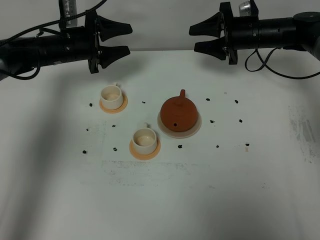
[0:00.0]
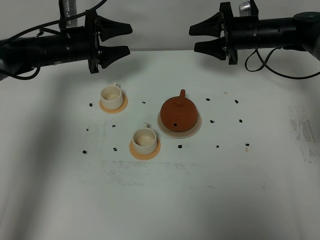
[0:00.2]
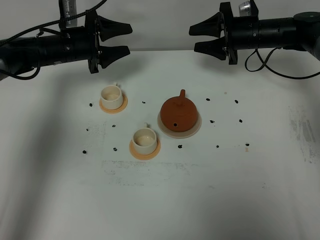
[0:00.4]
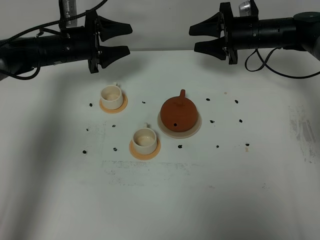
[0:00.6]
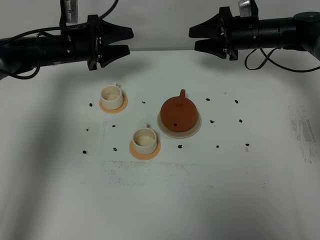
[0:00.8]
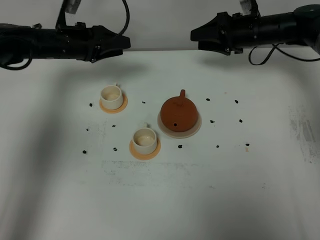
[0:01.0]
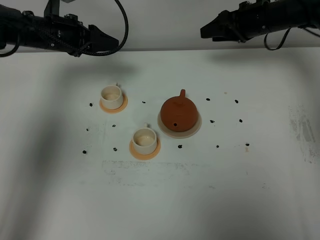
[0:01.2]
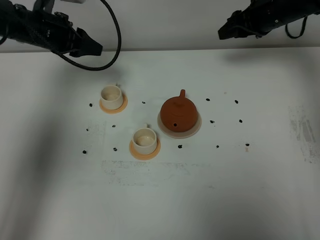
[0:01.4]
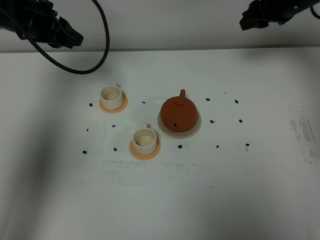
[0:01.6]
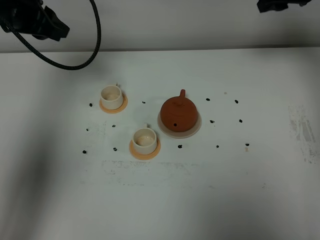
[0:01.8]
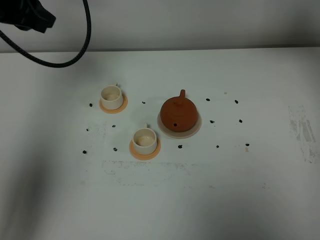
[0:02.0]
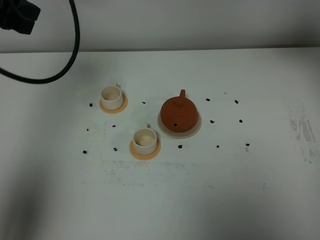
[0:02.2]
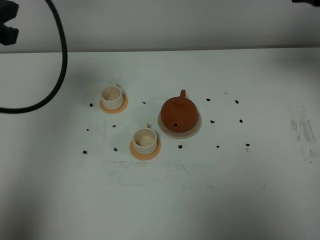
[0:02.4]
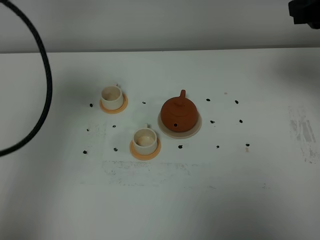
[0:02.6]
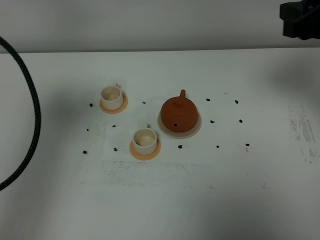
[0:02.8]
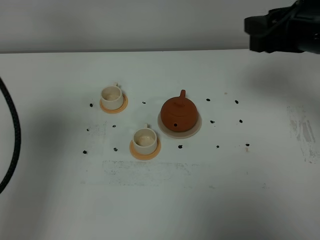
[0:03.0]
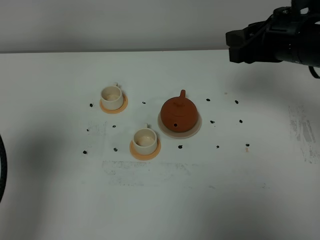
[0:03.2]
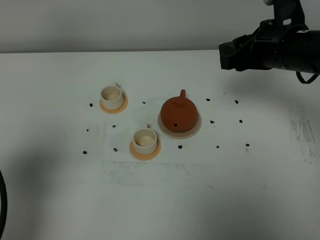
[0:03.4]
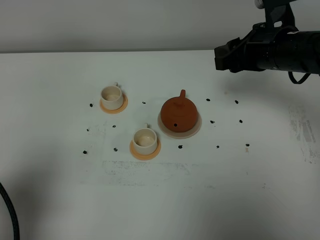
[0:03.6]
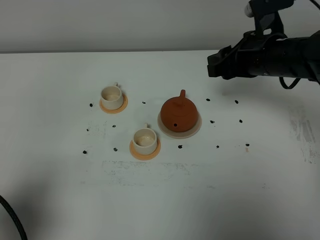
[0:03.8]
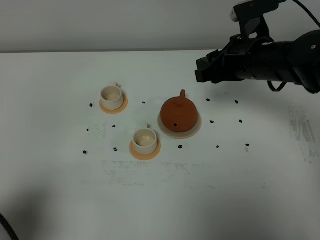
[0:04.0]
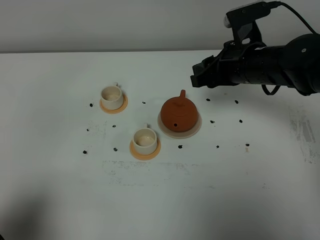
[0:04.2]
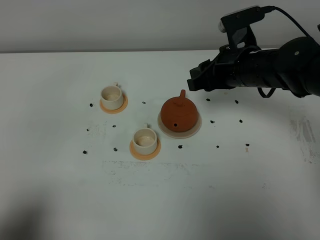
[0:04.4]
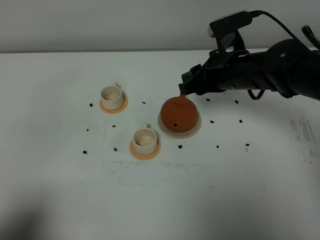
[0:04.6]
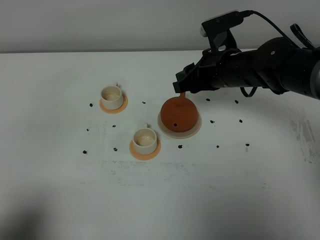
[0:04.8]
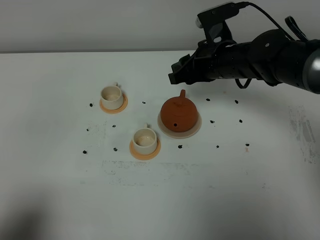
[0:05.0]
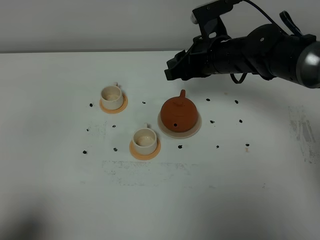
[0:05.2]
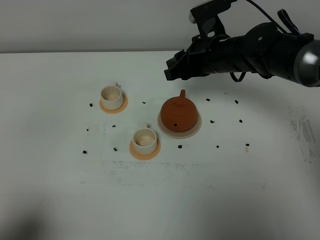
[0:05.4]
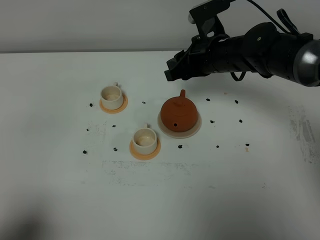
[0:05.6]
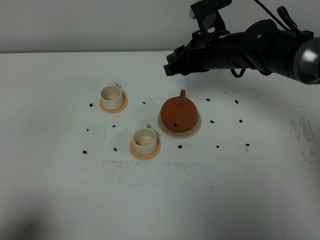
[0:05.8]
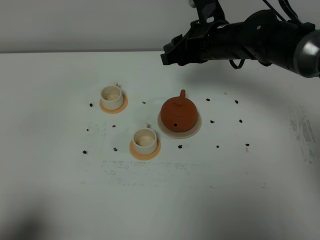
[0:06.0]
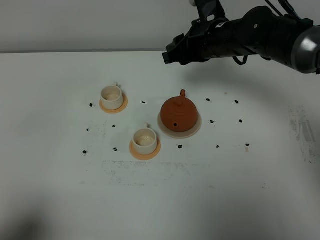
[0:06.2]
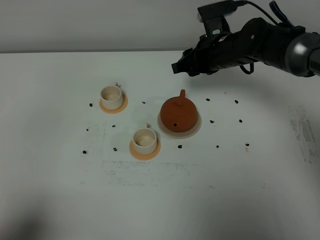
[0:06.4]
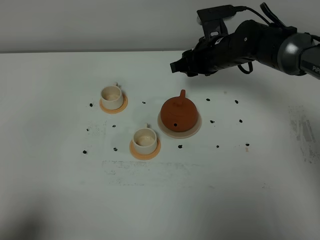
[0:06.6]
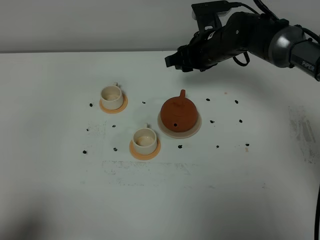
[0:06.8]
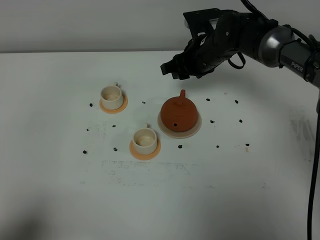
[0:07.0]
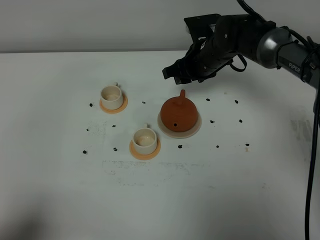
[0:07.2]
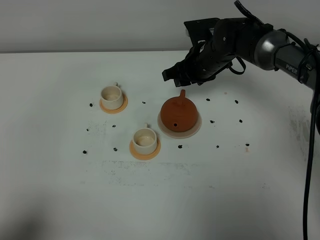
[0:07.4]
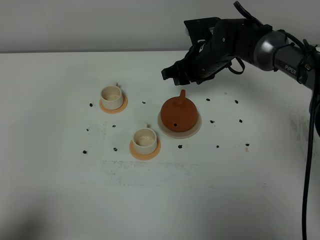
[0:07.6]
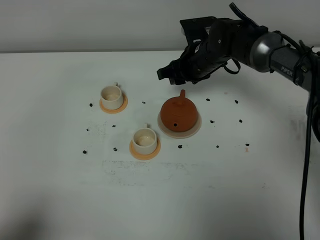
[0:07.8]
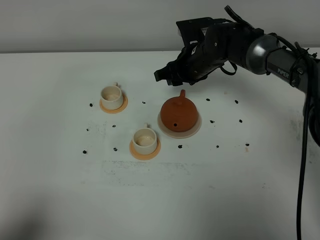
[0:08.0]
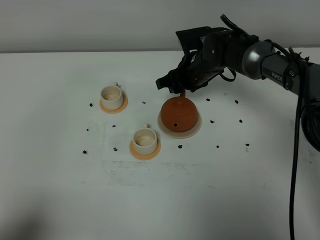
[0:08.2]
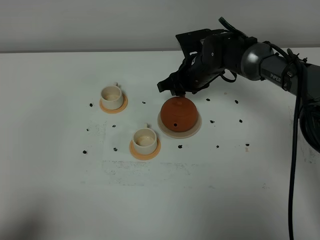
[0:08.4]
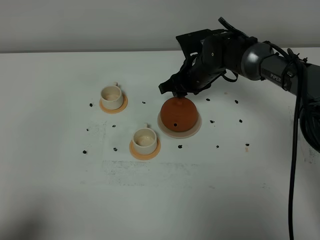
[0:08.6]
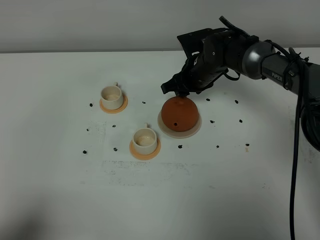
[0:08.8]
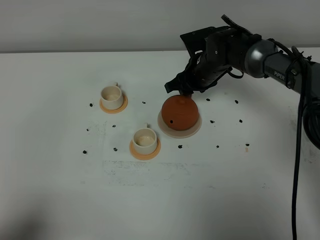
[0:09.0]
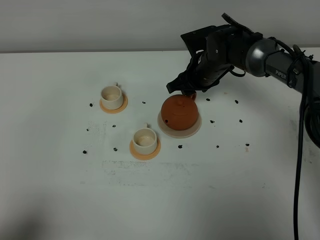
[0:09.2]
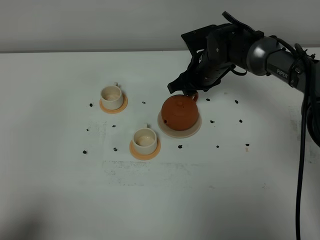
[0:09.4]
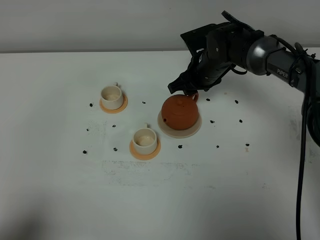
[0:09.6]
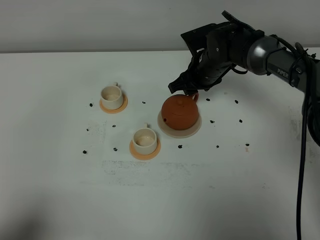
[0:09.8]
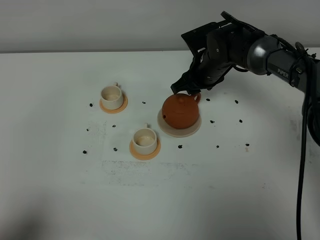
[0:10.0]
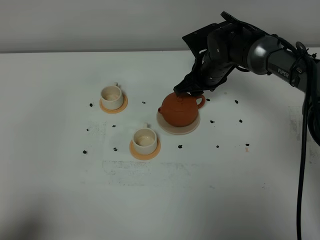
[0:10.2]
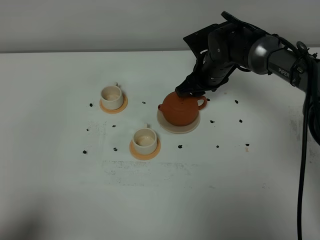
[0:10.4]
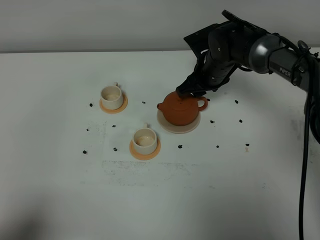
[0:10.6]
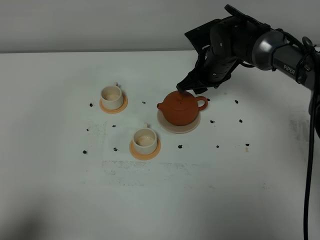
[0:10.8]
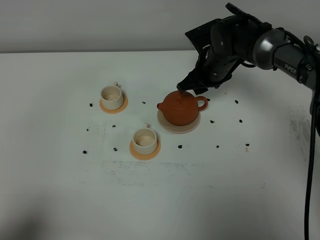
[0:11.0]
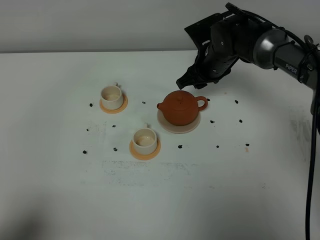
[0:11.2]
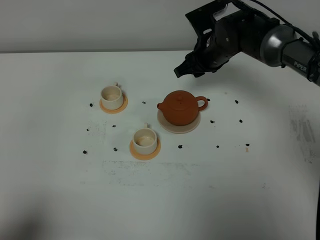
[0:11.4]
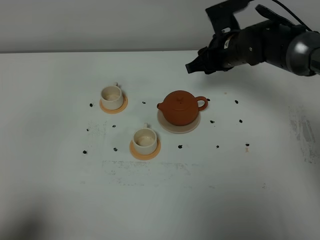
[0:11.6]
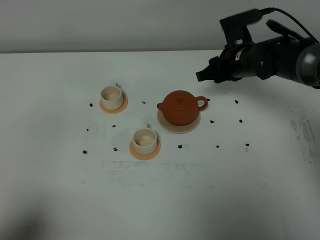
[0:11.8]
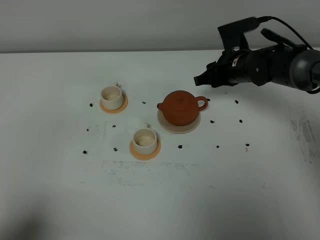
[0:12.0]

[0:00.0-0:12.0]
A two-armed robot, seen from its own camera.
Task of the whole recording: grasp the brown teapot and pour the tea into the two white teacups one by one, put the brown teapot back in its original place.
0:00.0 to 0:01.6: The right gripper shifts some 10 cm upward and to the right. The left gripper is displaced upward and backward by roughly 15 cm, and closes its fingers.
0:01.6 to 0:03.0: The right gripper moves backward, some 20 cm. Meanwhile the left gripper travels backward by roughly 30 cm.
0:03.0 to 0:04.4: The right gripper travels downward, to the left and forward by some 15 cm. The left gripper moves backward and downward, some 20 cm.
0:04.4 to 0:06.0: The right gripper is displaced forward by approximately 5 cm.
0:06.0 to 0:07.6: The right gripper travels downward by about 5 cm.
0:07.6 to 0:10.4: The grippers move only a little.
0:10.4 to 0:12.0: The right gripper heads to the right, covering approximately 5 cm.

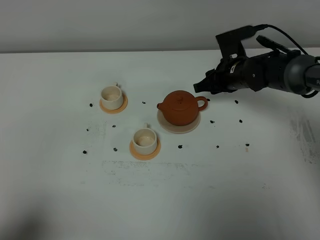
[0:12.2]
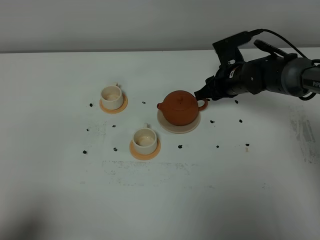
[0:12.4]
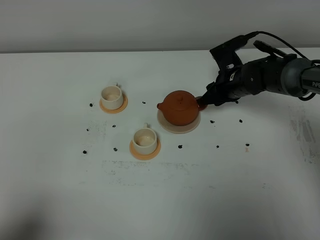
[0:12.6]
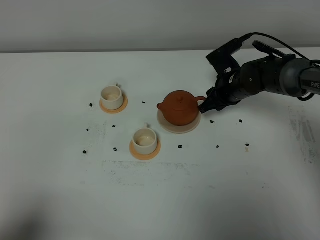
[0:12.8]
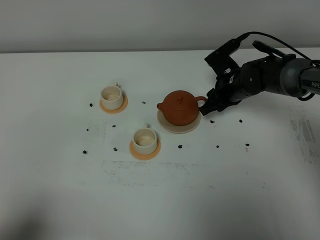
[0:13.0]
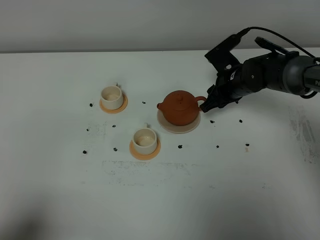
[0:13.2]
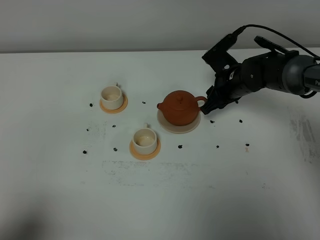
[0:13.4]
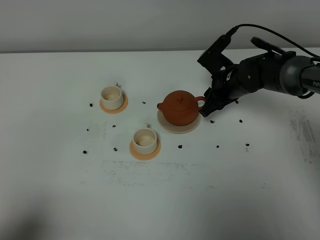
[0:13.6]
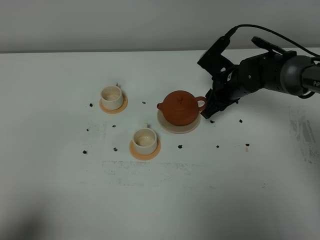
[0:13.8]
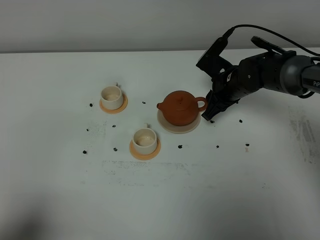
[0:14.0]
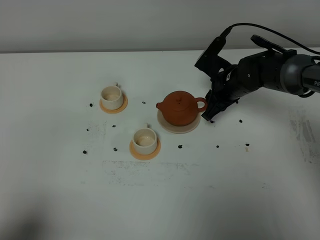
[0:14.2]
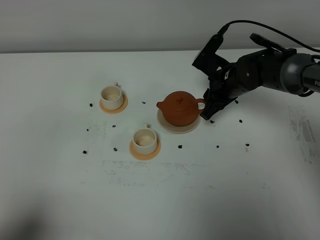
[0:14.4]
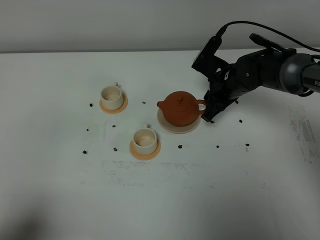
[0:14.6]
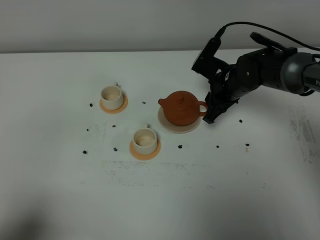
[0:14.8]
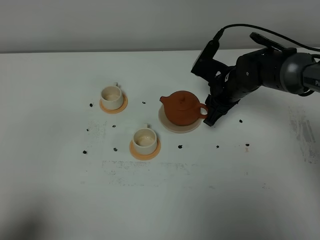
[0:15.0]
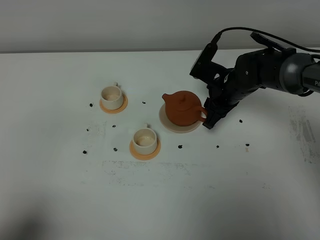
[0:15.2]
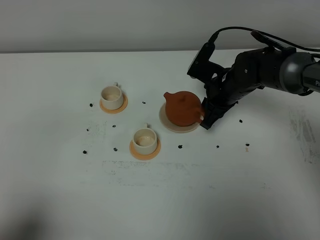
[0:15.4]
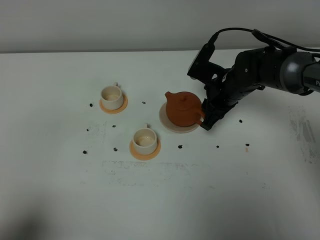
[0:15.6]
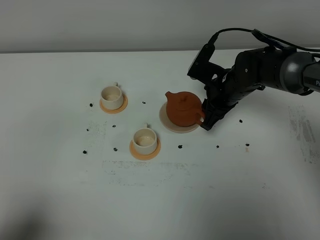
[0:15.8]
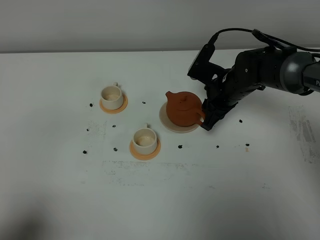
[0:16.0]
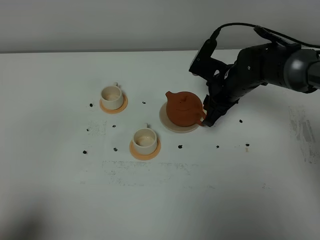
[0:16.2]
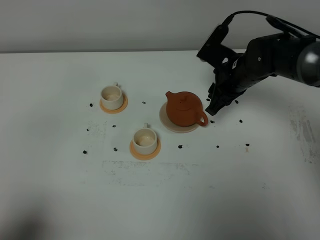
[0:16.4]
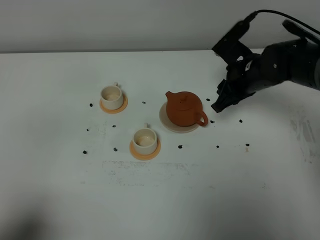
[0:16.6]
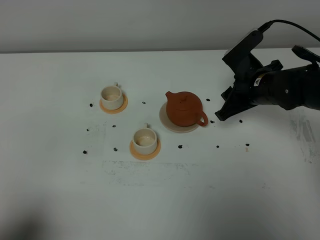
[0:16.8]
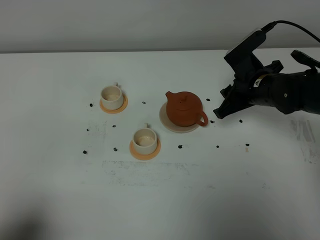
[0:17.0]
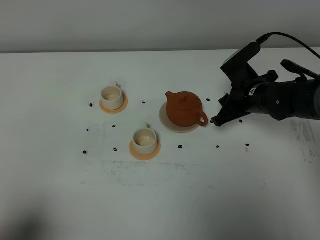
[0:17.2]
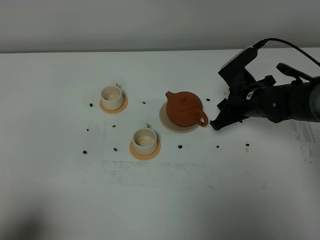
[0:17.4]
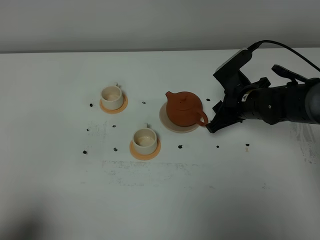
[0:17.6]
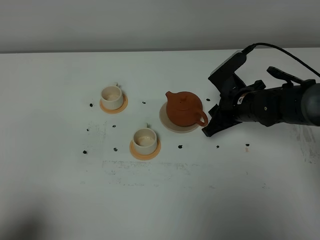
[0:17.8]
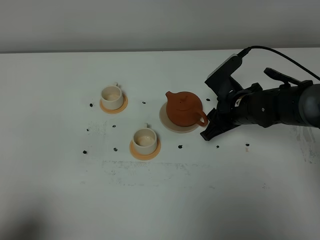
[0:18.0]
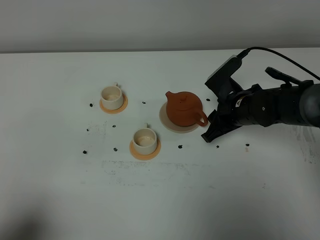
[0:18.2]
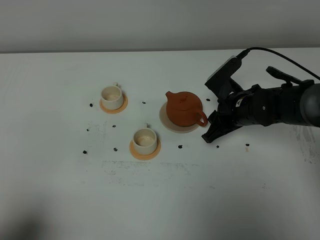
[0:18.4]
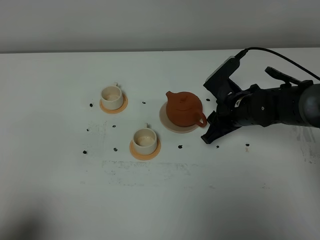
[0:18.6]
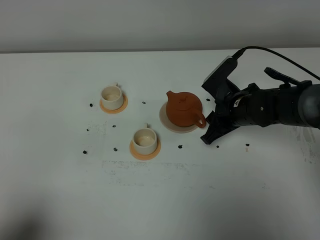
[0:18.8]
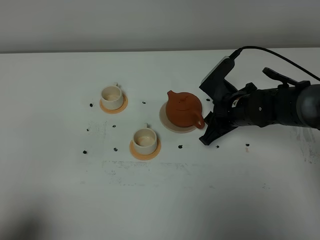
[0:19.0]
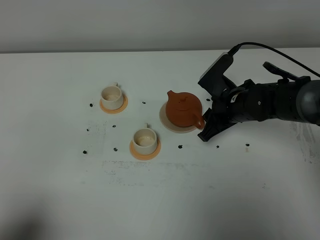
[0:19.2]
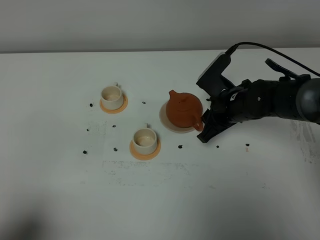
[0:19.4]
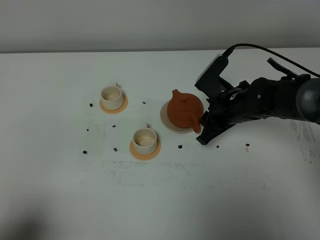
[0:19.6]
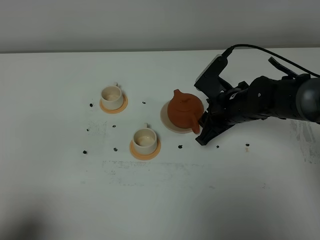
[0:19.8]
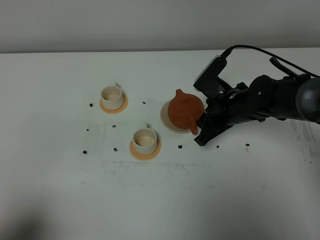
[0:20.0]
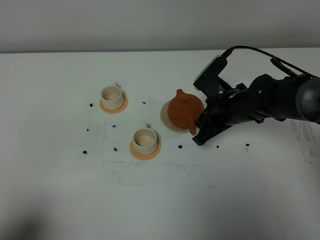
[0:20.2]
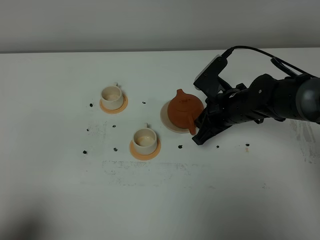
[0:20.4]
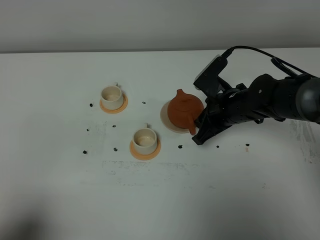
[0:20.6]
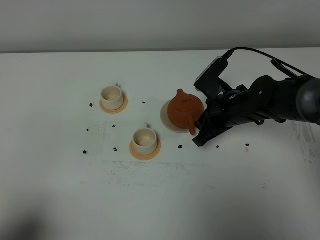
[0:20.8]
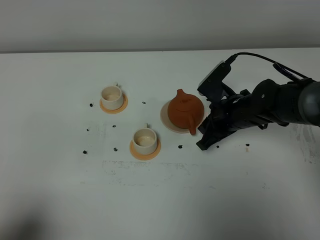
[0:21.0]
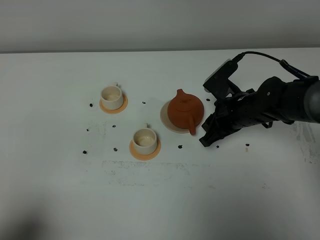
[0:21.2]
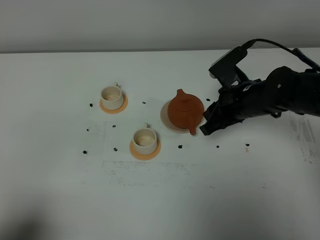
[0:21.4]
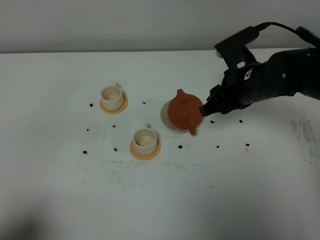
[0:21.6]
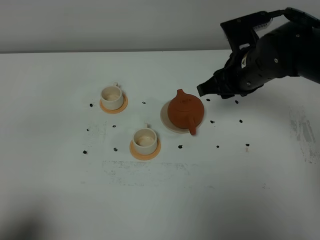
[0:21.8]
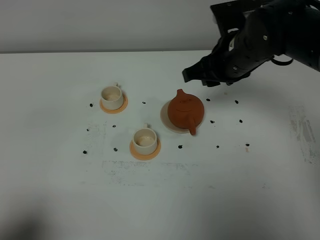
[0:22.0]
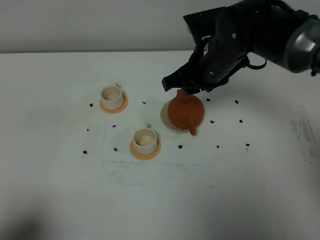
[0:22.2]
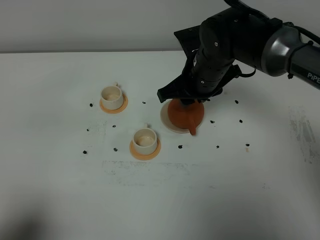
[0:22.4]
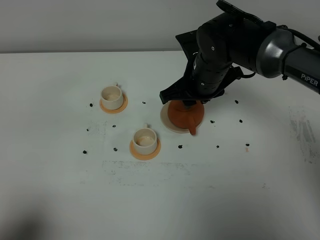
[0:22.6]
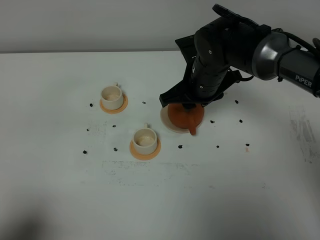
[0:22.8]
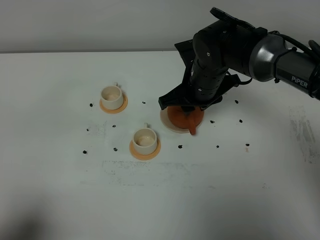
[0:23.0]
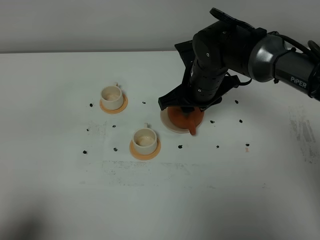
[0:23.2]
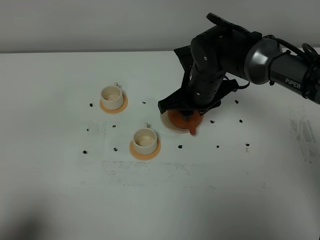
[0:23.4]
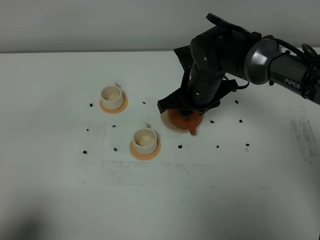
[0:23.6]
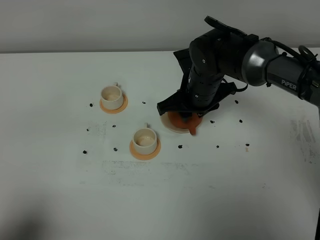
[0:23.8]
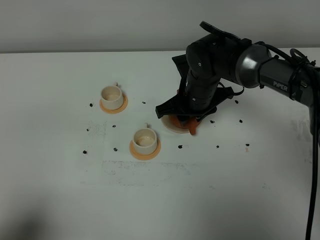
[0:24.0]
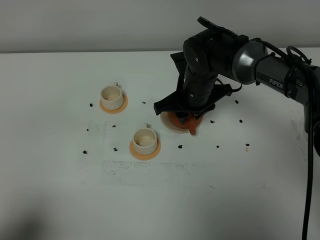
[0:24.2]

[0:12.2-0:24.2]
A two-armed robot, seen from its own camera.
Task of the whole recording: grasp the brown teapot and pour the tea into the two white teacups one by one, put the brown teapot back in its original place.
0:13.8 to 0:15.2: There are only small adjustments of the grippers.
0:15.2 to 0:16.6: The right gripper ends up about 5 cm from where it was.
0:16.6 to 0:18.2: The right gripper goes about 5 cm downward.
0:18.2 to 0:21.2: The grippers make only small movements.
0:21.2 to 0:22.6: The right gripper moves upward and to the left, about 10 cm.
0:22.6 to 0:24.2: The grippers stay close to where they were, moving slightly.
